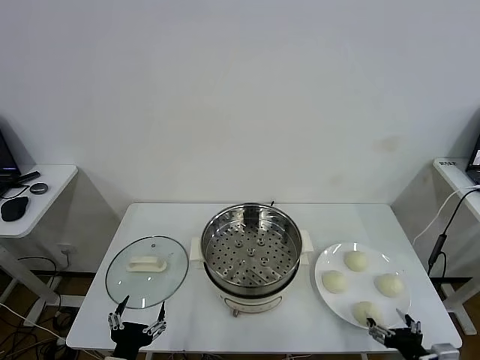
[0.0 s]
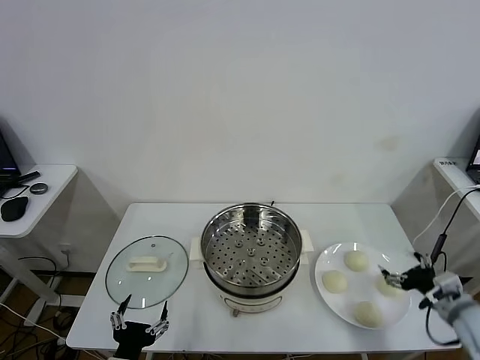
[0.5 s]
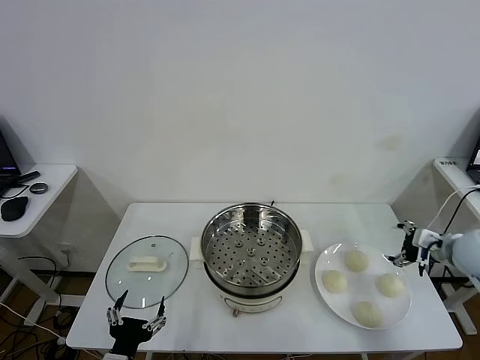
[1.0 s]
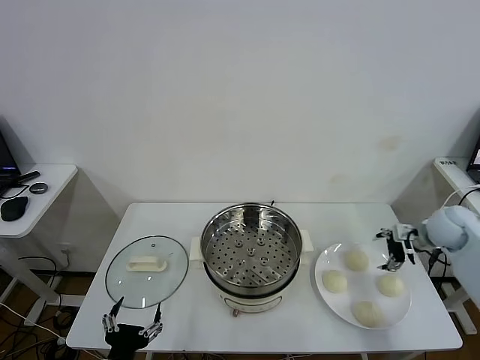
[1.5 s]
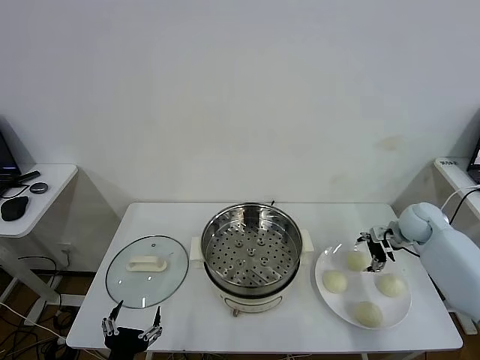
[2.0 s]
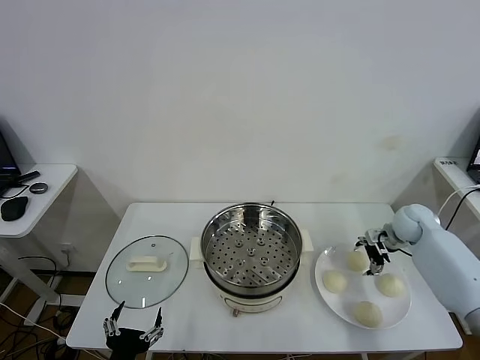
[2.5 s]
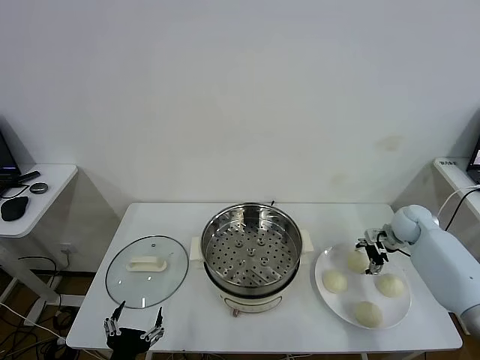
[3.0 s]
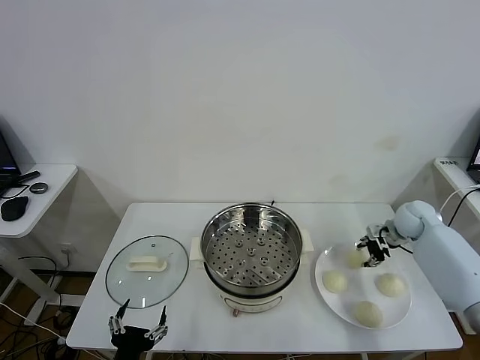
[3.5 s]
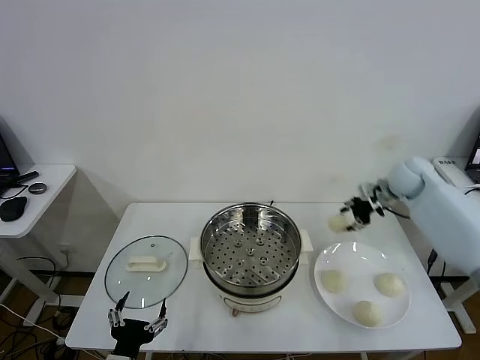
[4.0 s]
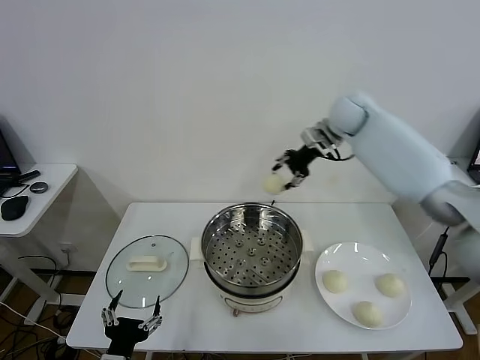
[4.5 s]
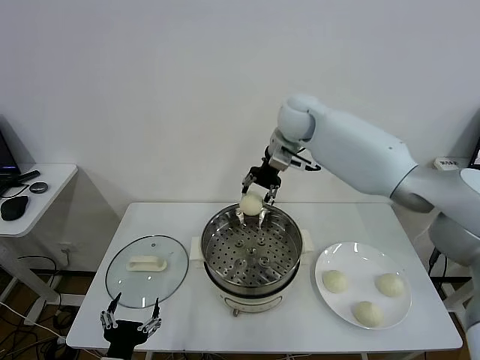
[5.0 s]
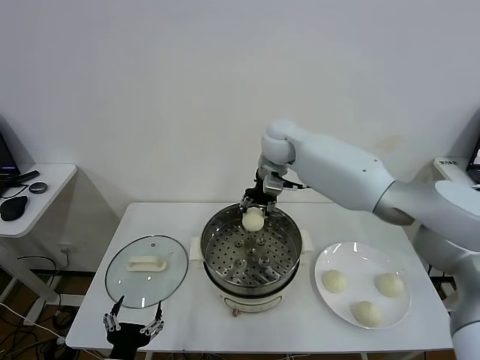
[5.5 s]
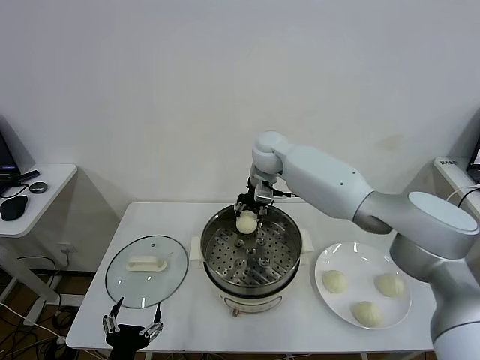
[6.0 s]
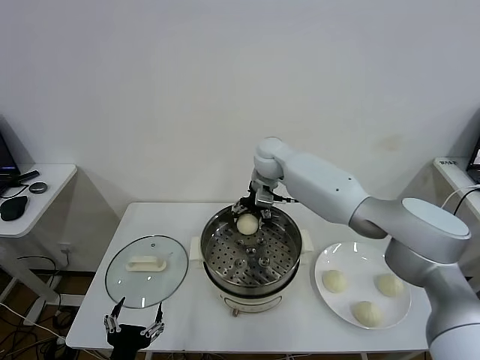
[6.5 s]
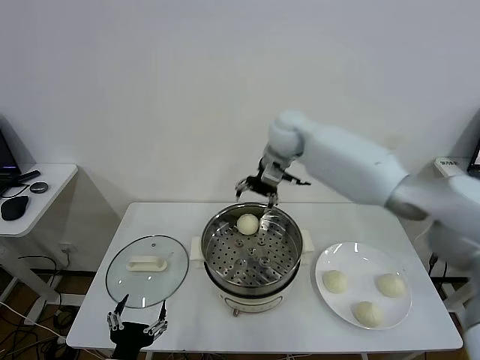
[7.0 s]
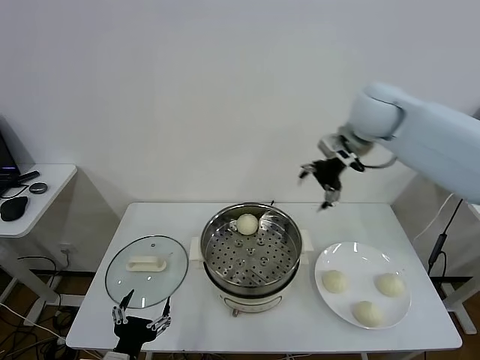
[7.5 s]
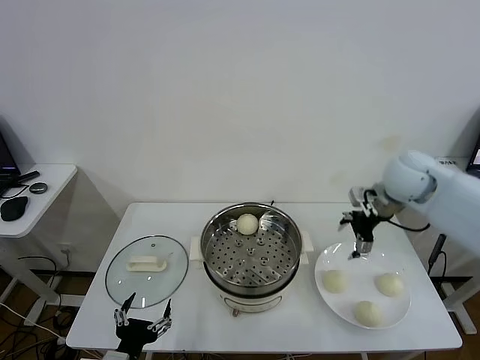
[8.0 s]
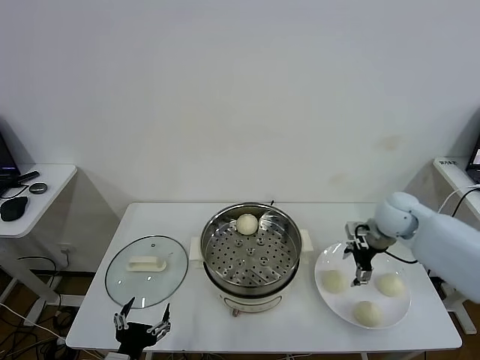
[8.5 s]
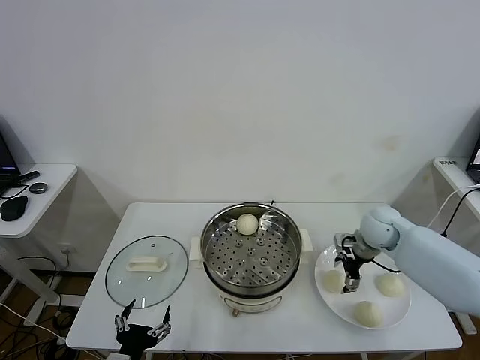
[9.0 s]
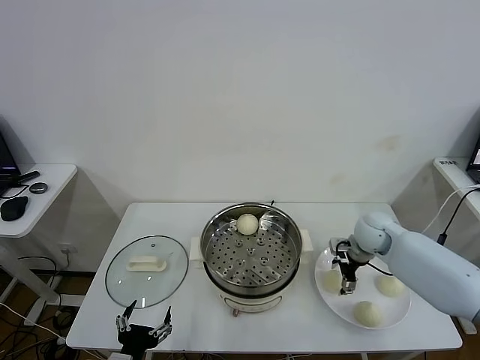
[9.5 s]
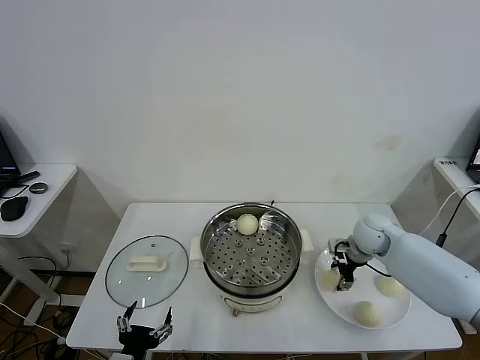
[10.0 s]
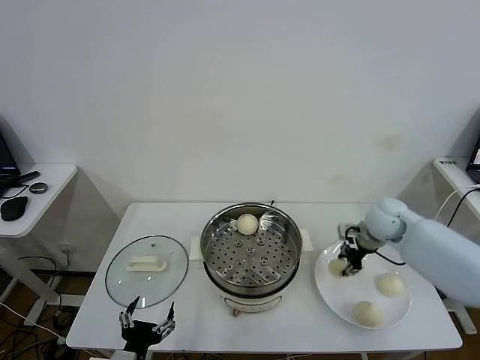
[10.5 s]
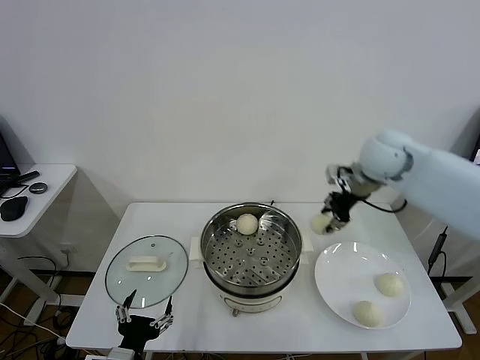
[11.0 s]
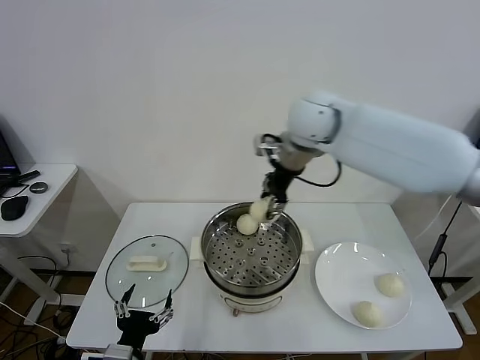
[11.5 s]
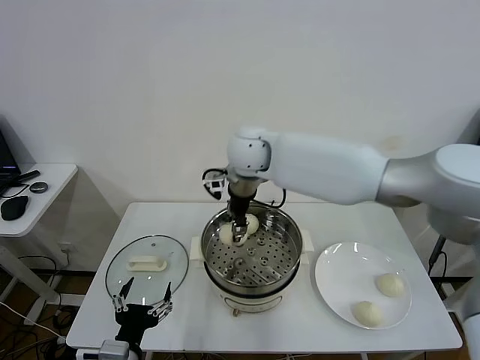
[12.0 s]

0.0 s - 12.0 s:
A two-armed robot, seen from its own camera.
Task of the whole recording: take steamed baozi put them in steamer.
Step, 0.0 s - 3.0 s: Grasp the baozi in the plate with right gripper.
Step, 3.5 s - 6.5 s: Place the baozi on the steamer with right gripper.
Step, 7.0 s - 9.5 s: Grasp the baozi in the plate with right gripper.
2.0 s - 4.0 s: The right gripper travels upward, forward and to the left by approximately 15 cm, and closes its fingers.
4.0 s - 6.0 s: The right gripper travels to the left by about 30 cm.
6.0 s - 8.0 s: The right gripper heads to the right and backward, covering approximately 30 cm, and opens its fingers.
8.0 s - 10.0 s: The right gripper shifts about 15 cm downward, and closes up.
10.0 s - 12.0 s: The right gripper moves to the left and upward, roughly 40 cm.

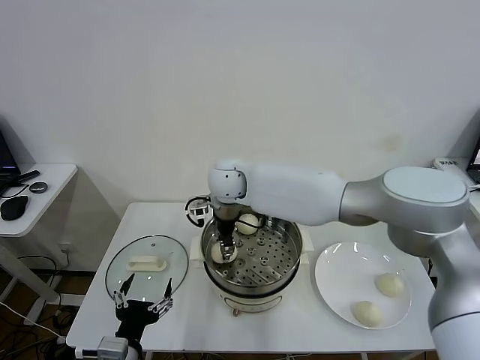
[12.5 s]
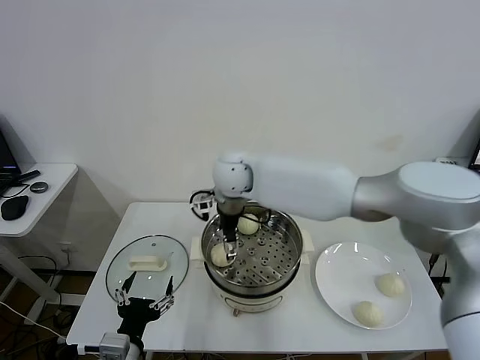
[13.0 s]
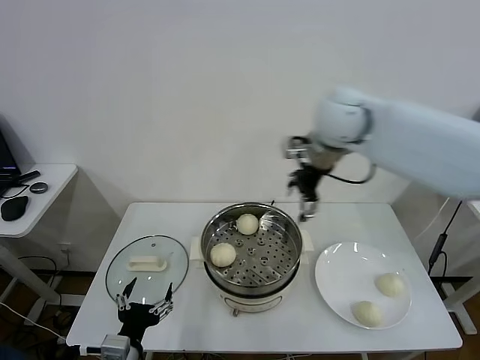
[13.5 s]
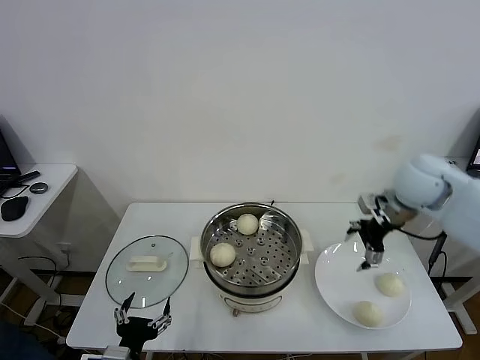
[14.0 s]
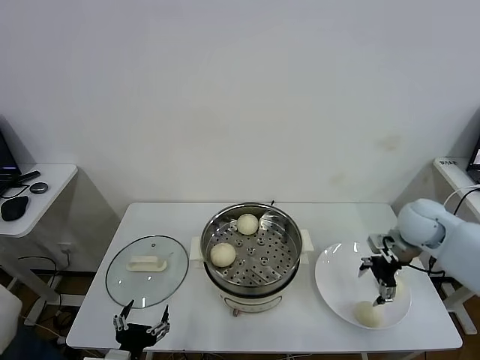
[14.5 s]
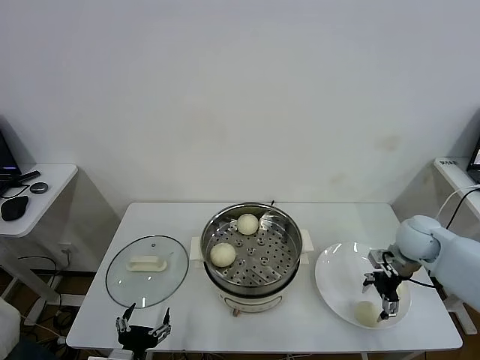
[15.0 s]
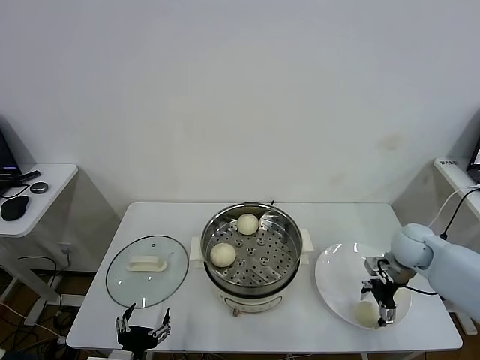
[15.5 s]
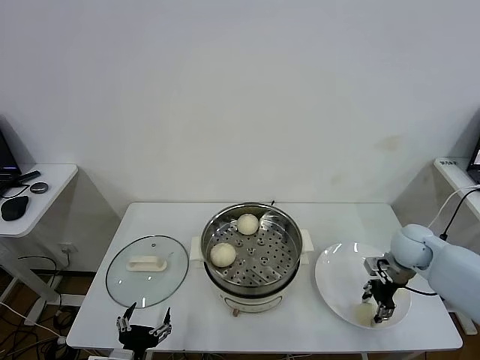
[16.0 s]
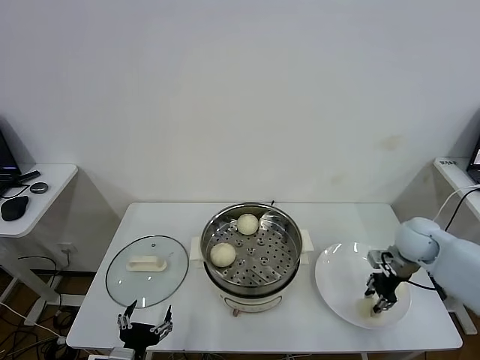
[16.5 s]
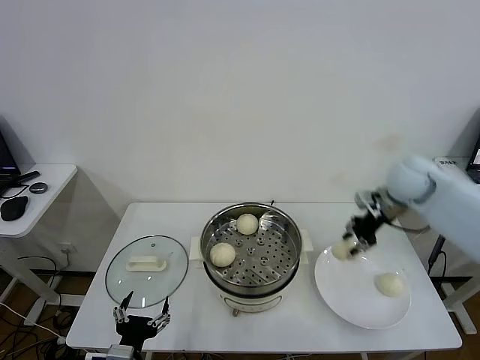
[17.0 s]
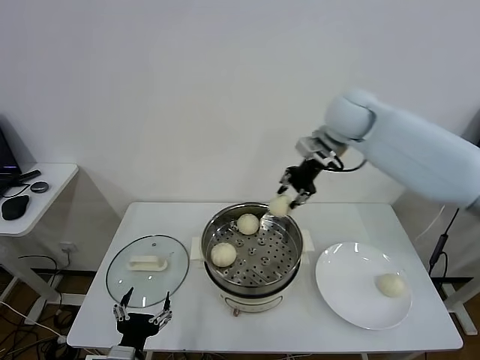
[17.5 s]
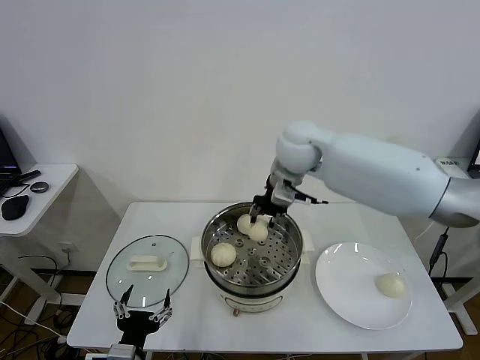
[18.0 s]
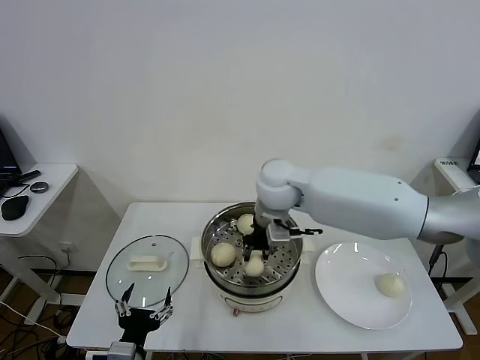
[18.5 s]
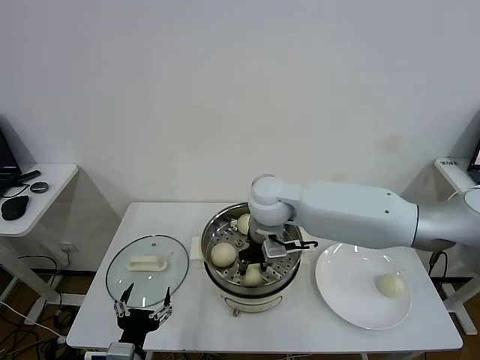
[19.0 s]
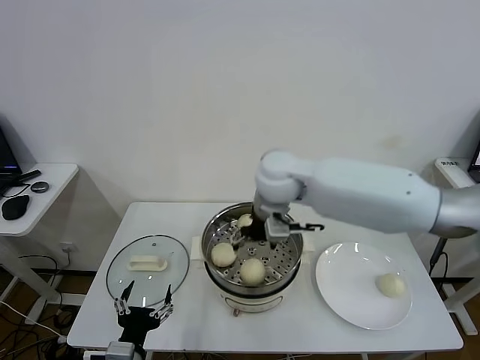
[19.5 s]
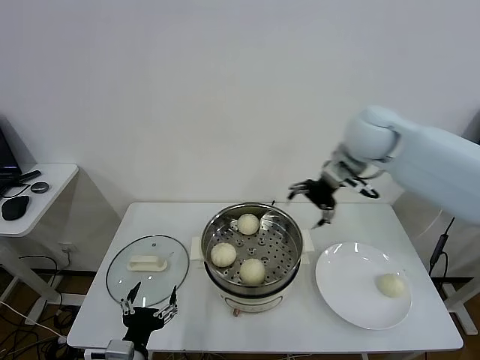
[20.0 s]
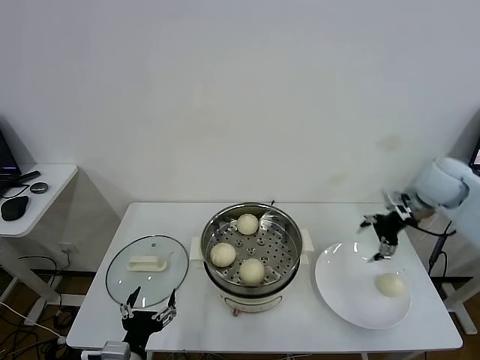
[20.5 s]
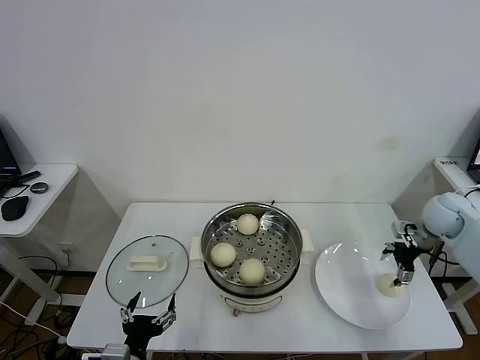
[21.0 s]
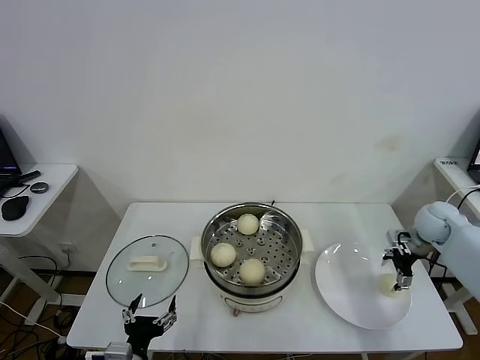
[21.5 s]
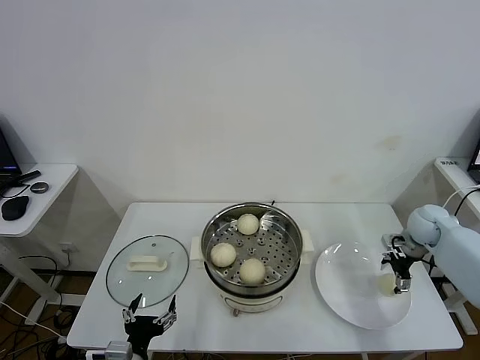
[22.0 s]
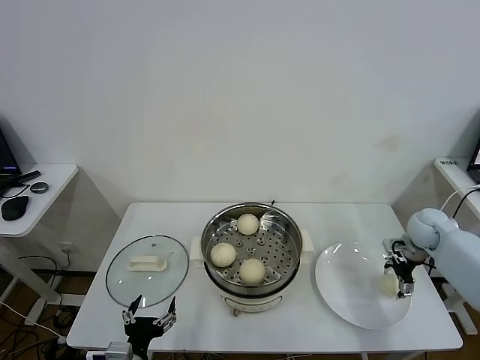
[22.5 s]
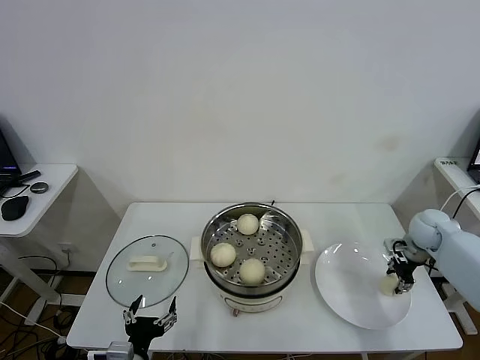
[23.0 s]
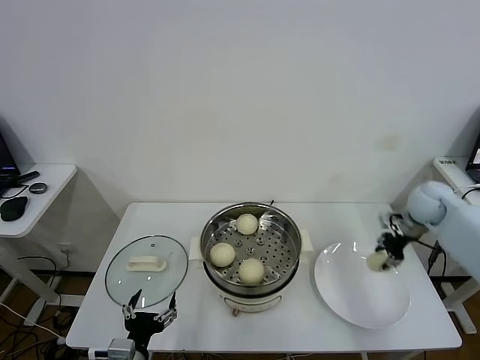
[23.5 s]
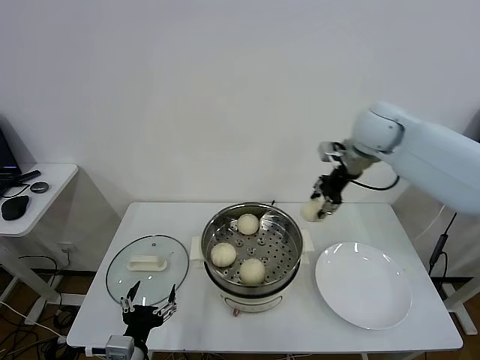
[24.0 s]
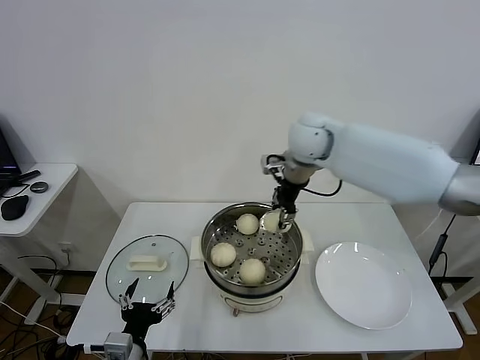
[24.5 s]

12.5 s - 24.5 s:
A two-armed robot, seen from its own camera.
Task of the whole recording: take steamed baozi put them in steamer.
Step, 13.5 s - 16.0 s: Grasp the baozi in the plate with right gripper.
Step, 16.5 s - 19.0 s: Place the baozi on the steamer with right gripper.
Step, 19.5 s - 23.0 s: Grasp the baozi in the plate with right gripper.
12.5 s - 14.5 s: The right gripper shifts about 40 cm to the right, and opens up.
14.5 s - 16.5 s: The right gripper shifts approximately 5 cm downward, and closes up.
16.5 s - 18.5 s: The right gripper travels to the left by some 35 cm.
18.5 s - 20.5 s: The right gripper travels to the right by about 35 cm, and opens its fingers.
20.5 s - 22.5 s: The right gripper moves downward, about 15 cm.
22.5 s - 24.5 s: The right gripper travels to the left and upward by about 40 cm, and closes.

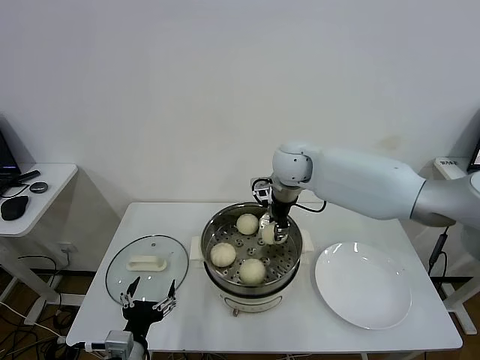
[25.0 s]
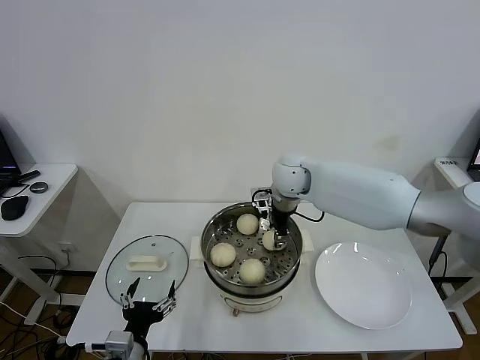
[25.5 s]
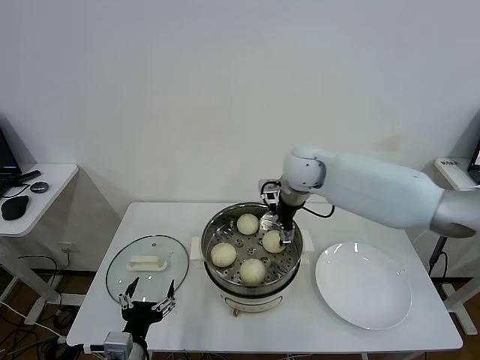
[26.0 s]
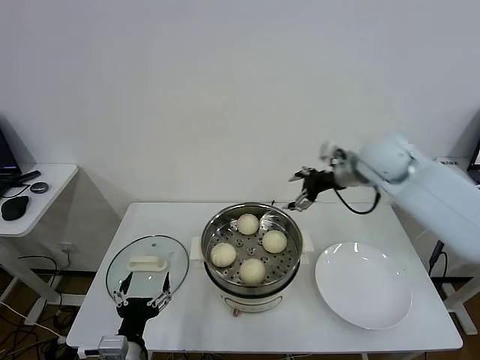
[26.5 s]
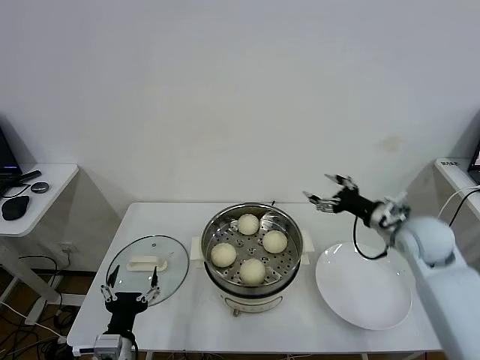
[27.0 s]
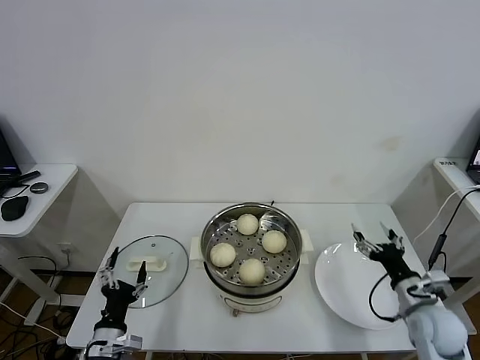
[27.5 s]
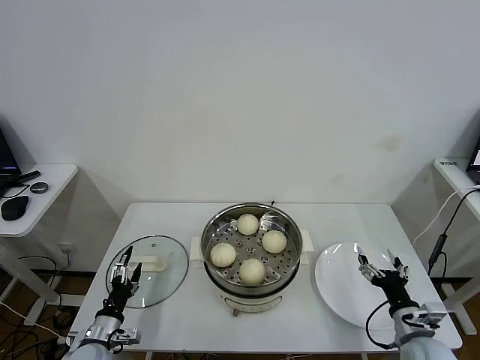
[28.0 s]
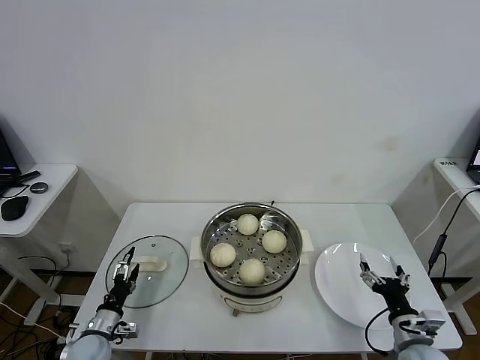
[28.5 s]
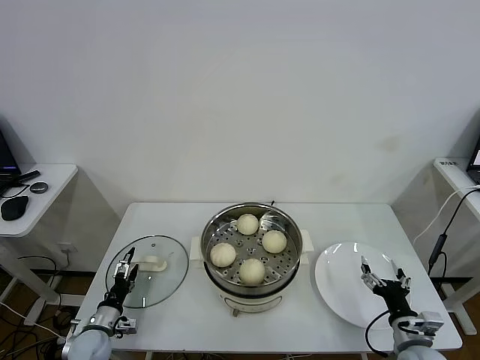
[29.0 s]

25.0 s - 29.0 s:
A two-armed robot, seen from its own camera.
Task of the whole recording: take steamed baozi put them in steamer.
25.0 s - 27.0 s: The right gripper is displaced to the right and backward by approximately 30 cm, and opens.
27.0 s - 29.0 s: The right gripper moves backward and downward, about 30 cm, while the left gripper is displaced downward, to the left and forward by roughly 25 cm.
